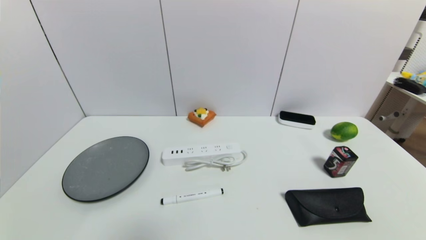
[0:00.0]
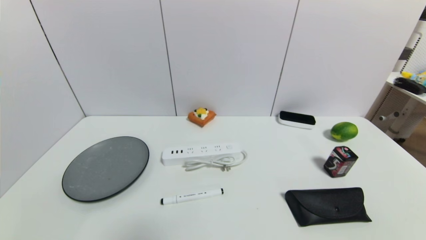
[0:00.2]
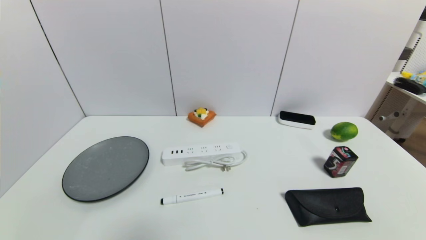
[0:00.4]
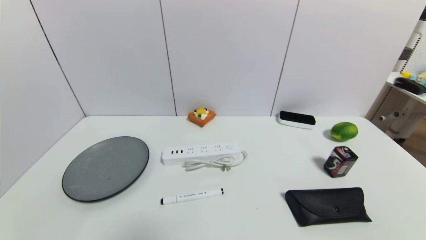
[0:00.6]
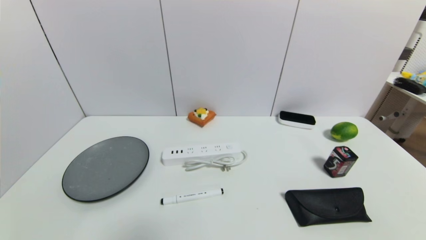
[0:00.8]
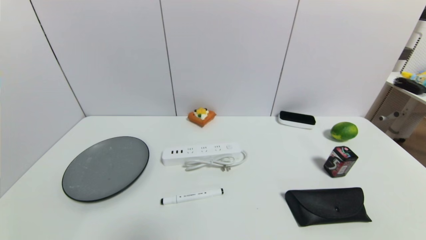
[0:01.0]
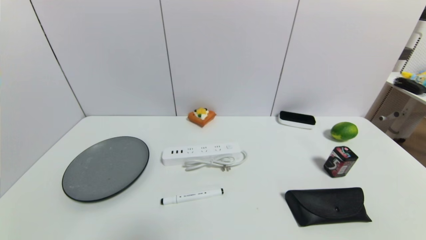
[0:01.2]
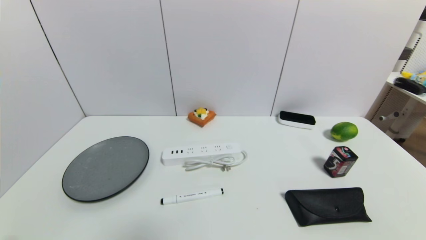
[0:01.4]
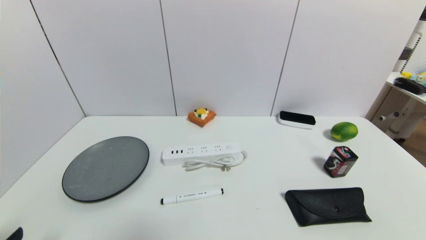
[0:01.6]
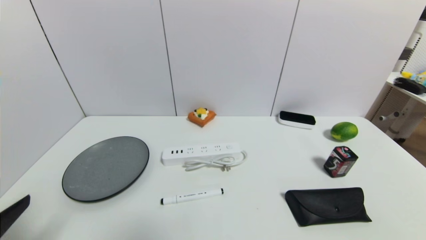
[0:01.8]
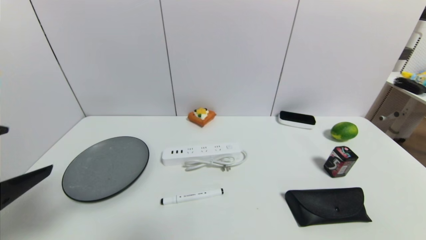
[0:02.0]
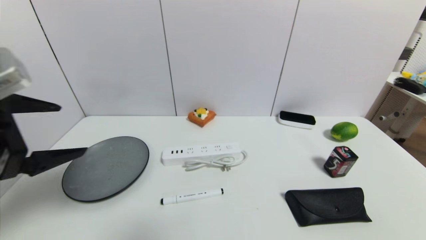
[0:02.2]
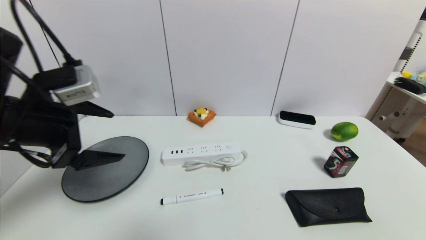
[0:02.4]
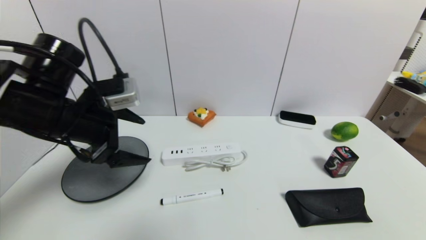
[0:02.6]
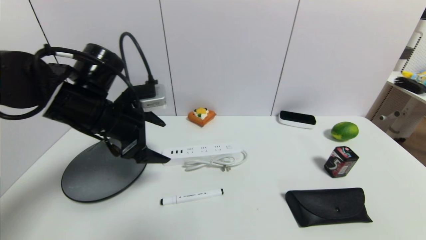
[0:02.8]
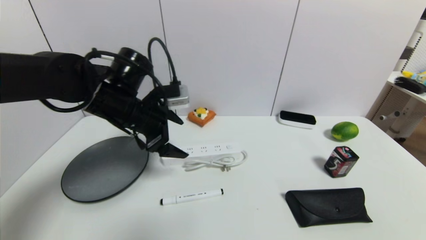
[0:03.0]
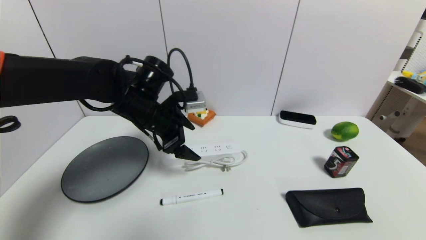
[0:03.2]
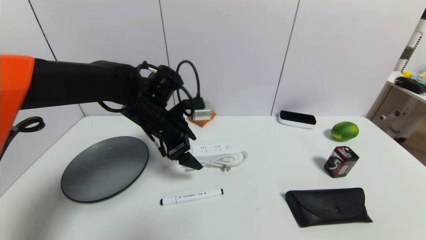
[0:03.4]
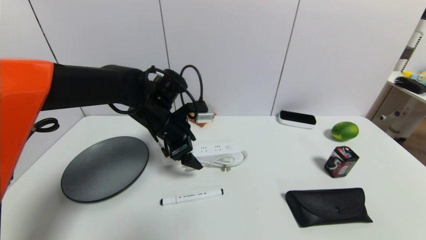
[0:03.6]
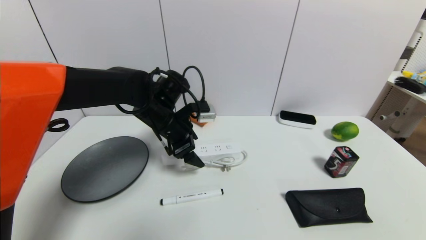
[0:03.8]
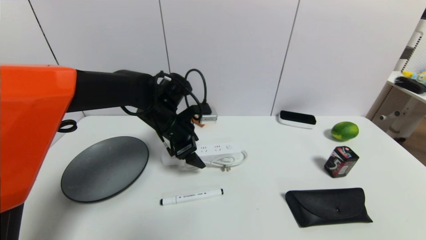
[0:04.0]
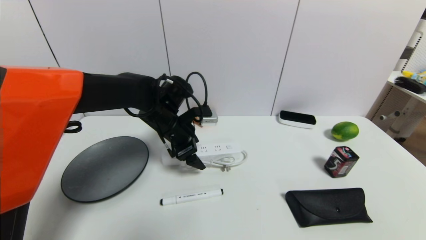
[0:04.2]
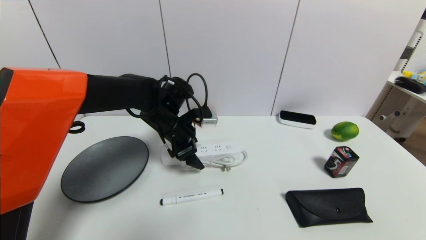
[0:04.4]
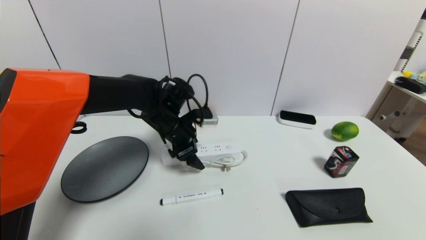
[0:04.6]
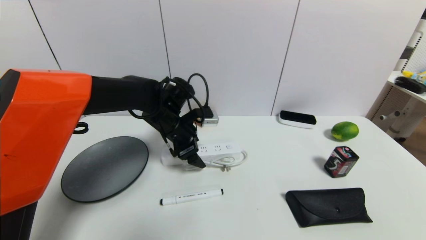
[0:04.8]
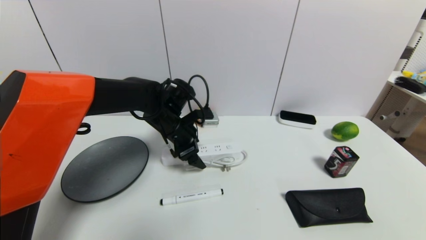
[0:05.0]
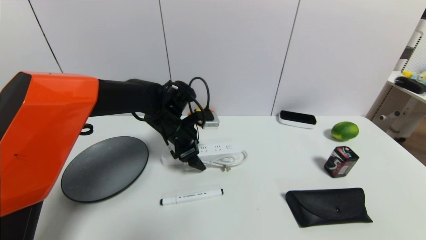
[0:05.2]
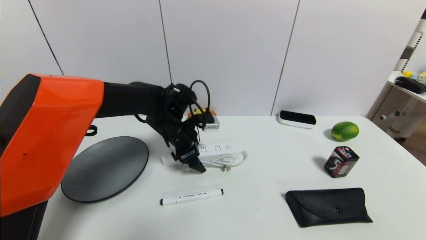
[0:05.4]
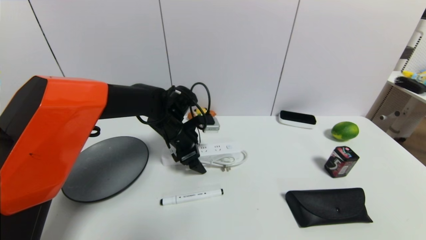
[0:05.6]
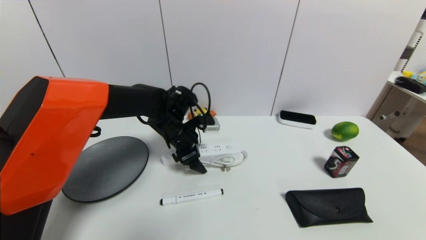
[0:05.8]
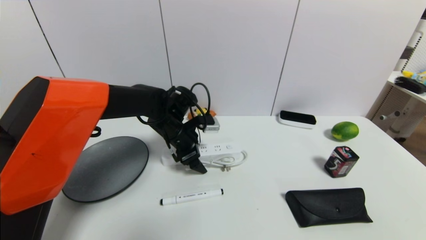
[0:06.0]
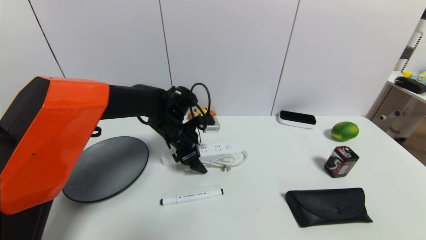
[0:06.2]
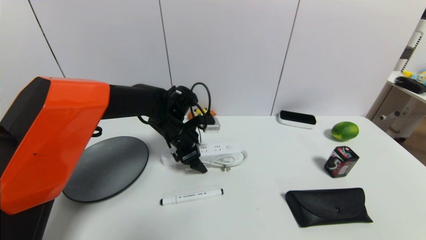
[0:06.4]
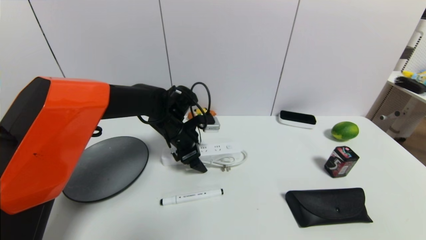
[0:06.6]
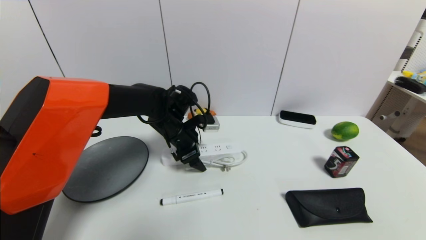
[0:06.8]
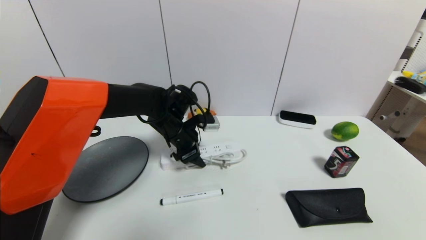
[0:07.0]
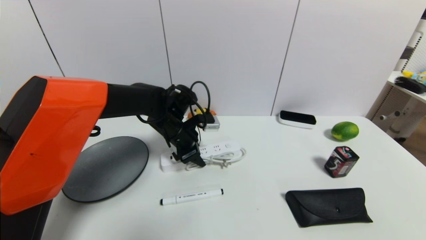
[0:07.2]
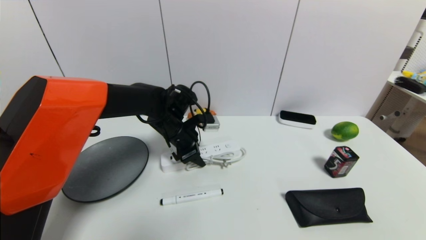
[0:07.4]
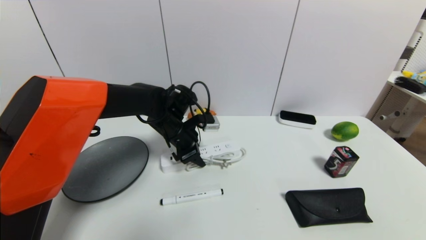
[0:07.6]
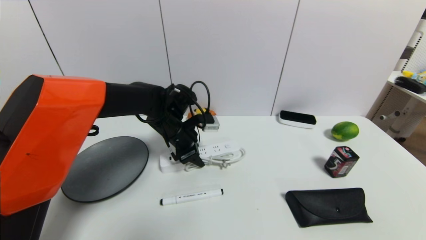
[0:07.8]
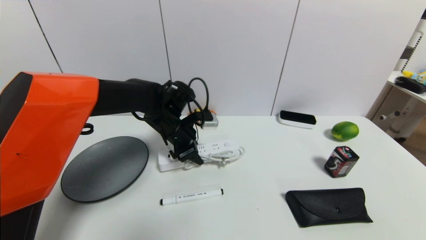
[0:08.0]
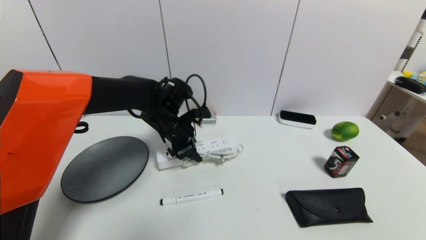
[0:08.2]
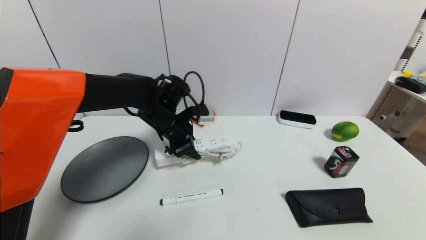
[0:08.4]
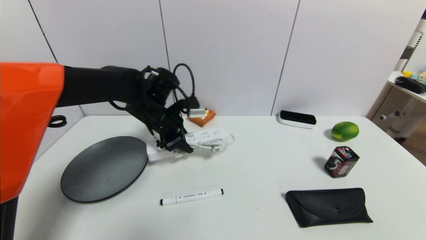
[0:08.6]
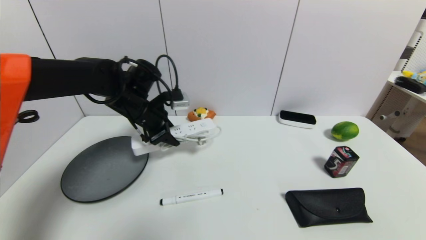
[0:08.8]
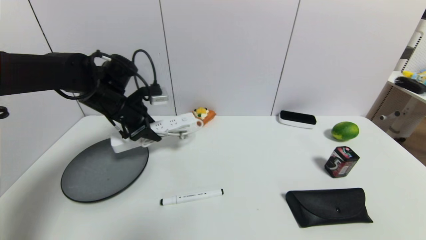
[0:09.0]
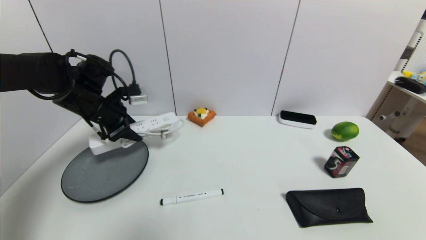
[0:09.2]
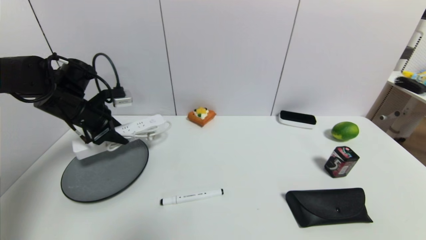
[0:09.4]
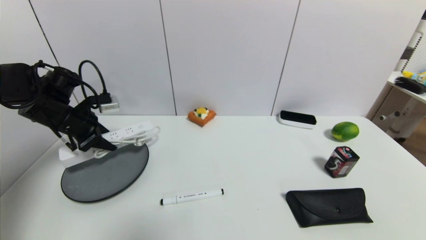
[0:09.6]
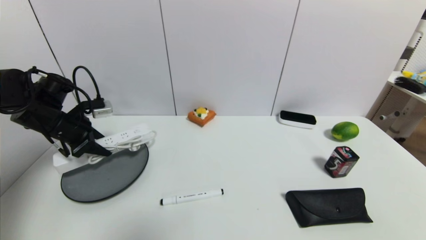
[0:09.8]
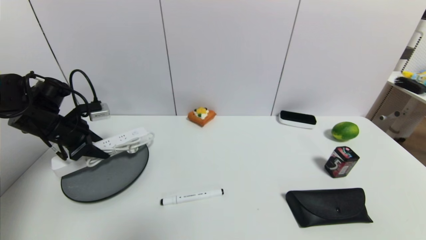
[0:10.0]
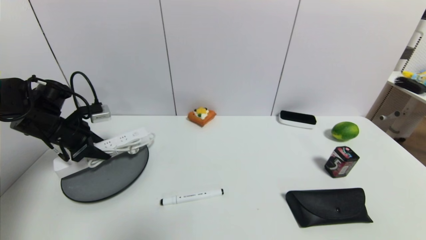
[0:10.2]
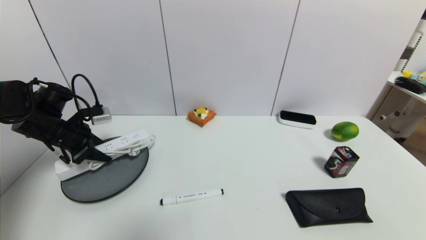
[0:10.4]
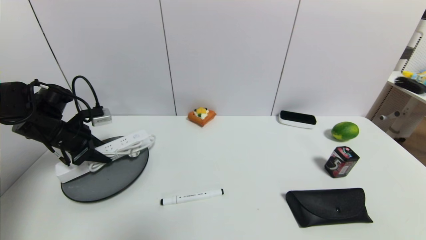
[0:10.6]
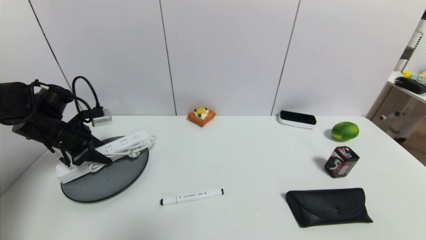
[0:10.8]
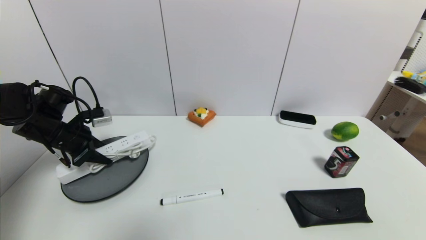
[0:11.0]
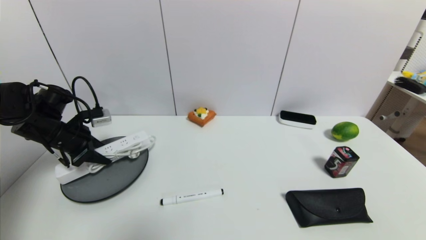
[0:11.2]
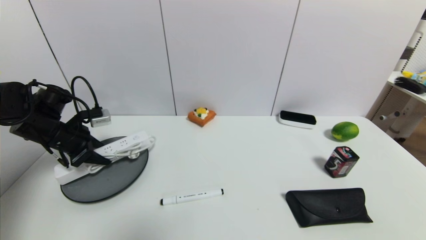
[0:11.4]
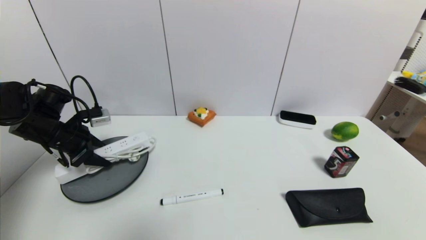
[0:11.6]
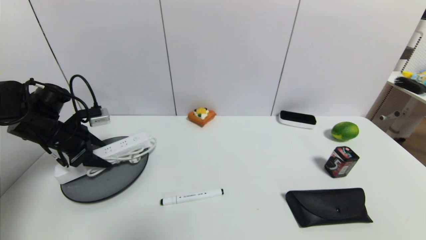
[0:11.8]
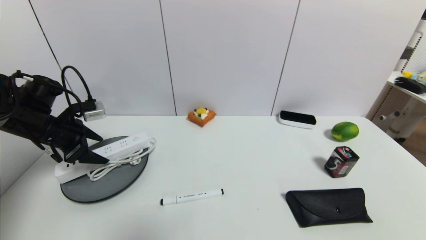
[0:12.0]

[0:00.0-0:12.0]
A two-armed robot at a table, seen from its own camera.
Task of the whole recording: use a gripper to pick the target object and place on the gray plate.
Step, 0:00.0 to 0:07.6: Grasp the plugboard with the left gripper.
0:01.6 to 0:03.0: The left gripper goes approximately 35 cm forward and to the right.
0:03.0 to 0:04.4: The left gripper shifts roughly 10 cm downward and to the right.
0:04.4 to 0:06.0: The grippers make only small movements.
0:06.0 to 0:07.6: The left gripper closes.
0:07.6 to 0:09.0: The left gripper shifts about 15 cm to the left and upward.
0:09.0 to 0:10.4: The left gripper goes some 15 cm to the left.
0:10.4 to 0:12.0: The left gripper opens up.

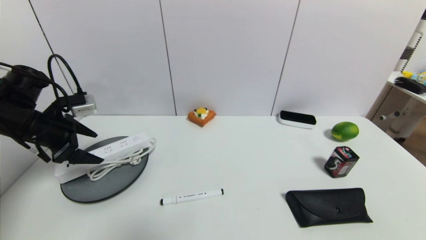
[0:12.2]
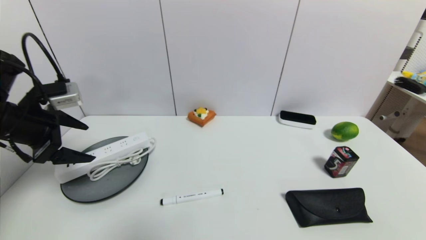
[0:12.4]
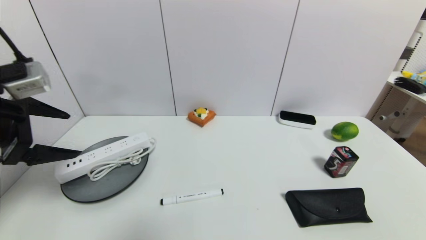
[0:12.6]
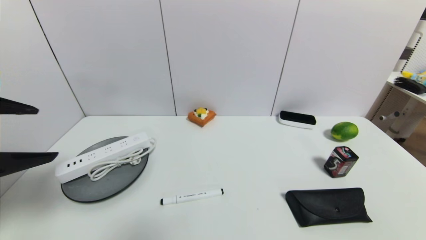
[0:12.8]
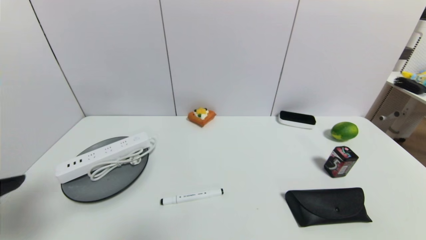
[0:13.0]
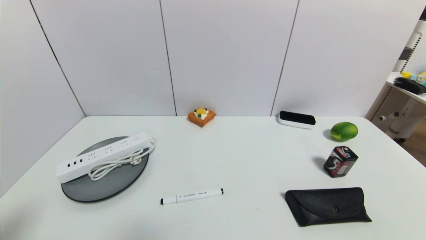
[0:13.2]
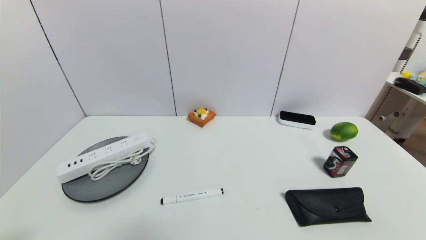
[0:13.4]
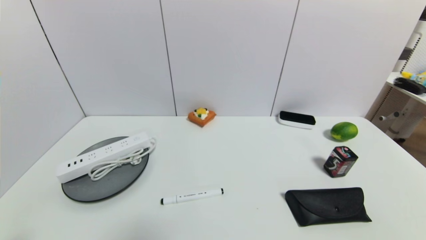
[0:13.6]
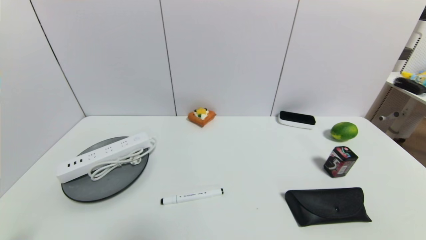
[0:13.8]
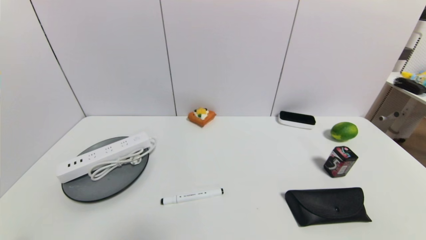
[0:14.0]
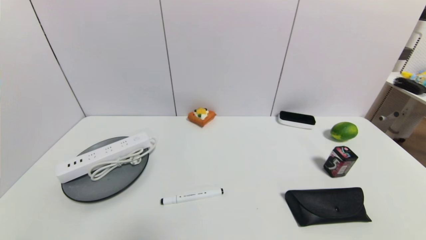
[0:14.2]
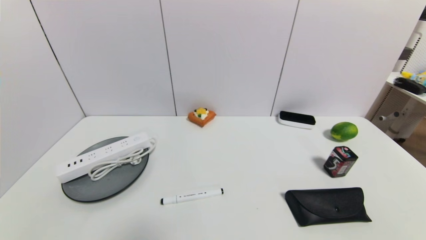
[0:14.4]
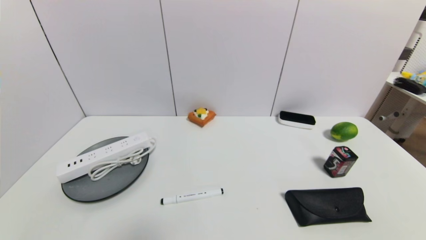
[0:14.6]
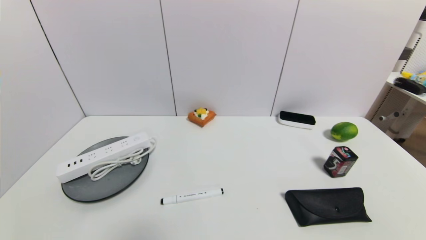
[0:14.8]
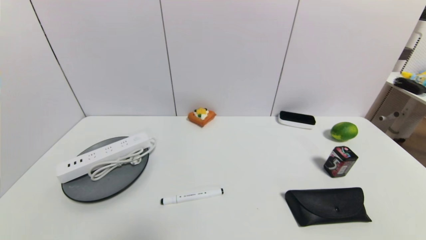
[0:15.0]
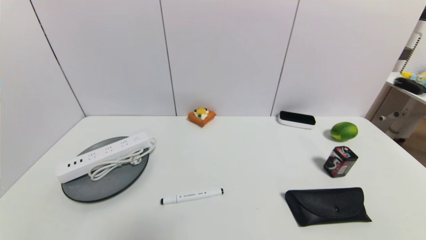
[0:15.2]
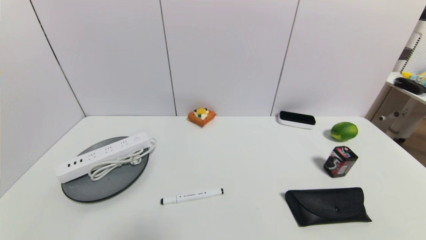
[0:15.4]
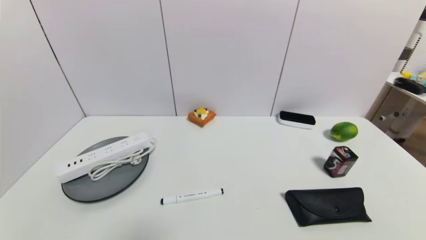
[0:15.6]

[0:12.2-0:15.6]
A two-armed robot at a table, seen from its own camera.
Task of the whole recording: use a gripper to pick the target object and place on the gray plate.
0:12.2 to 0:13.8: The left gripper shifts some 30 cm backward.

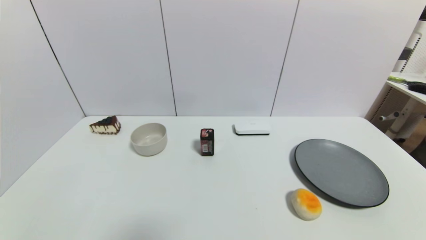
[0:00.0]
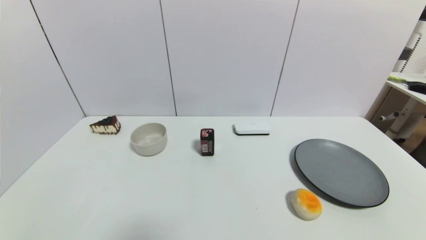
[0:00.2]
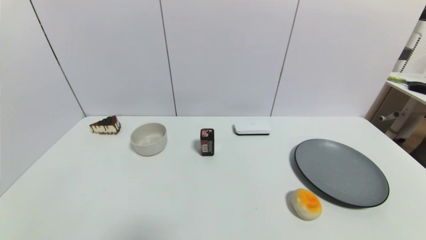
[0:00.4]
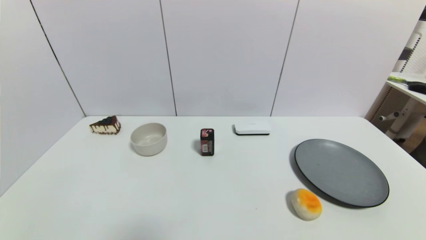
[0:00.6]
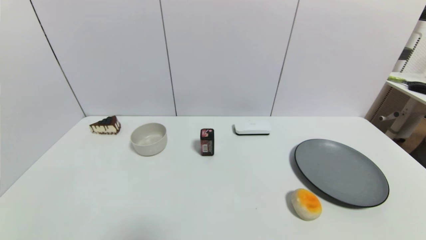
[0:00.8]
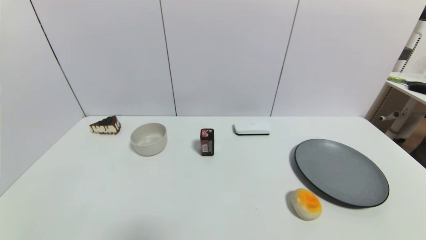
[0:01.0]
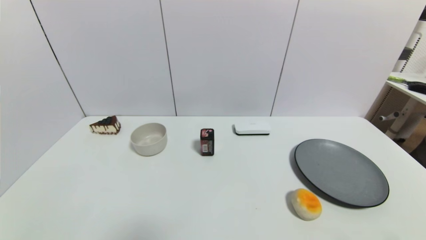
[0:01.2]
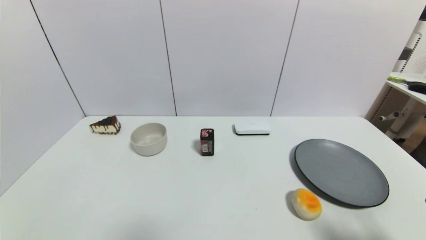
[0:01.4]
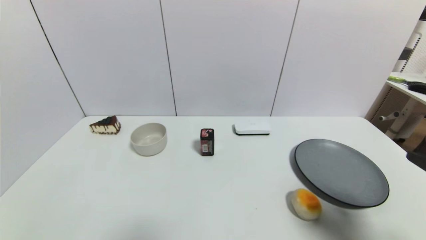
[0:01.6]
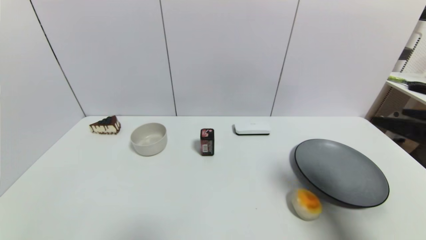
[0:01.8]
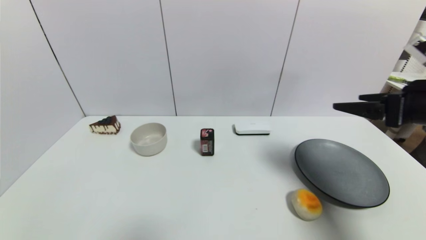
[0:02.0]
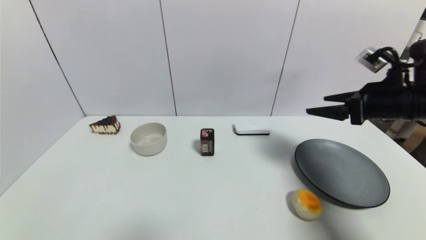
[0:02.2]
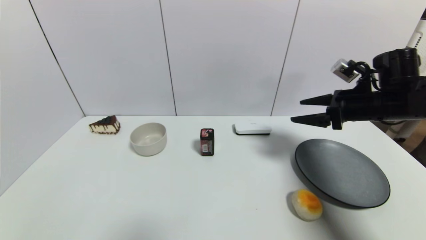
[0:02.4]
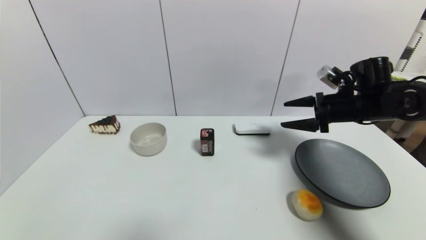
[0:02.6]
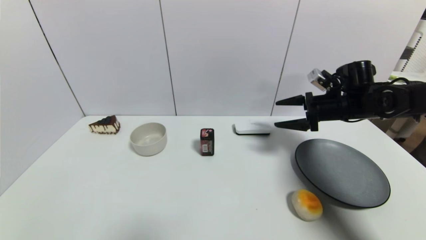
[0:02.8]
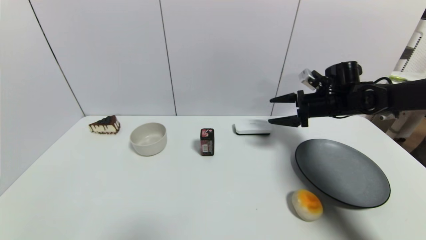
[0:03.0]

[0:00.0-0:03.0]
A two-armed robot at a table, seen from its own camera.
Task of the whole recording: use a gripper to pick the target object and place on the gray plate.
0:00.0 to 0:01.6: The right gripper travels upward and forward by roughly 20 cm.
0:01.6 to 0:03.0: The right gripper heads forward, covering about 35 cm.
